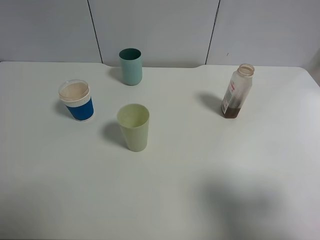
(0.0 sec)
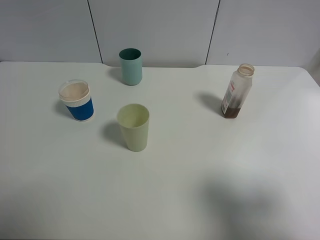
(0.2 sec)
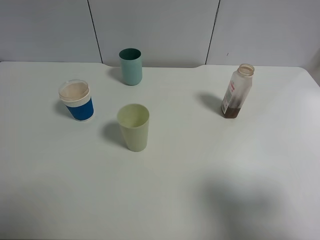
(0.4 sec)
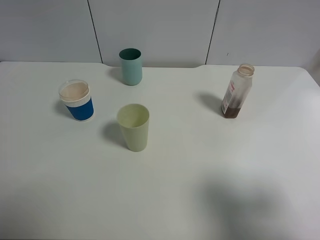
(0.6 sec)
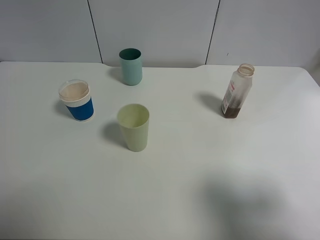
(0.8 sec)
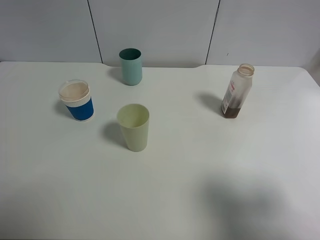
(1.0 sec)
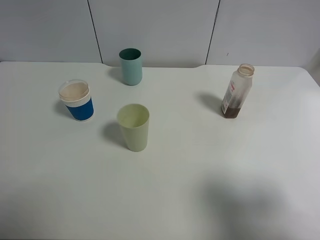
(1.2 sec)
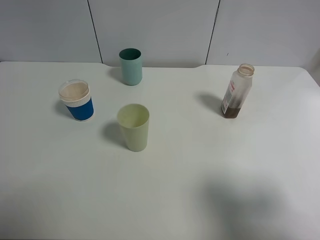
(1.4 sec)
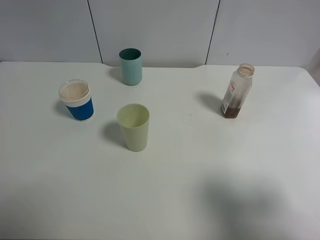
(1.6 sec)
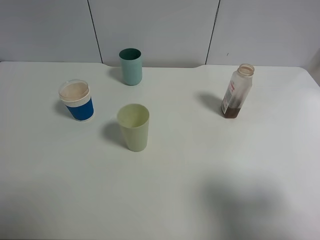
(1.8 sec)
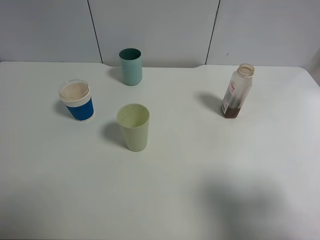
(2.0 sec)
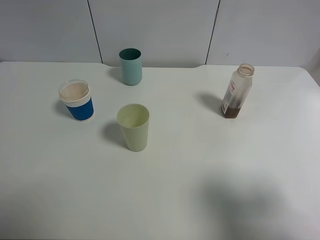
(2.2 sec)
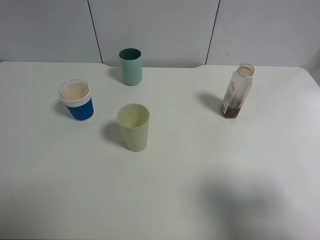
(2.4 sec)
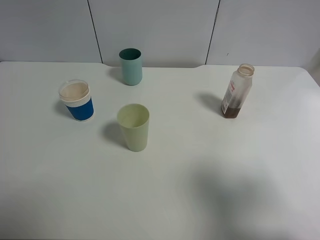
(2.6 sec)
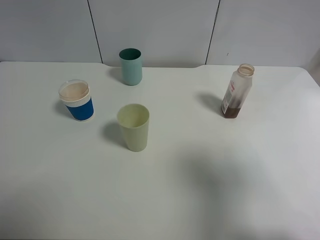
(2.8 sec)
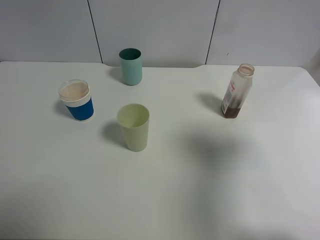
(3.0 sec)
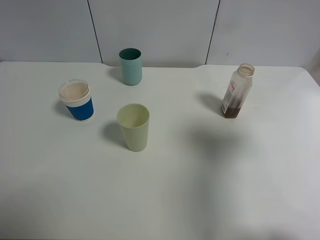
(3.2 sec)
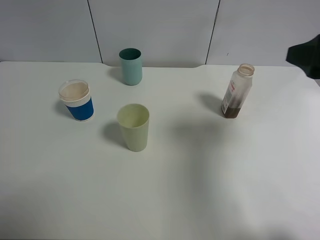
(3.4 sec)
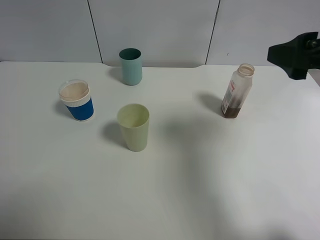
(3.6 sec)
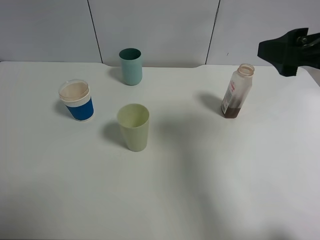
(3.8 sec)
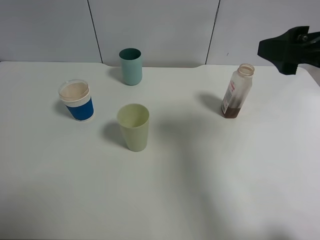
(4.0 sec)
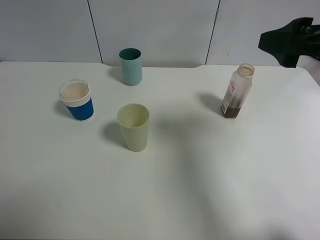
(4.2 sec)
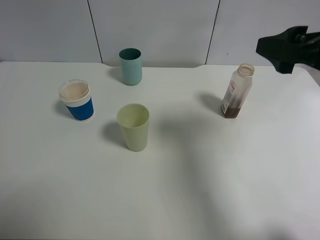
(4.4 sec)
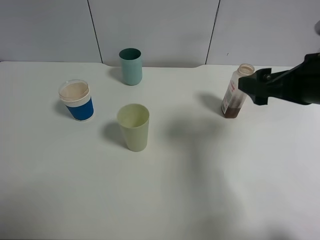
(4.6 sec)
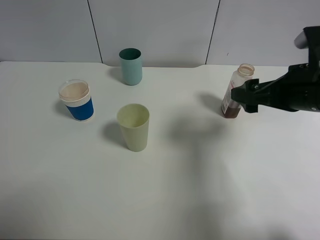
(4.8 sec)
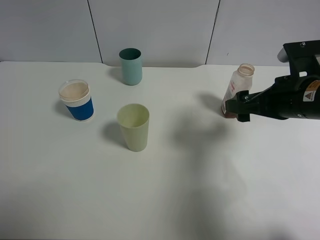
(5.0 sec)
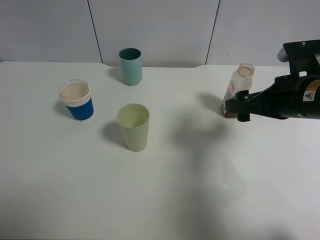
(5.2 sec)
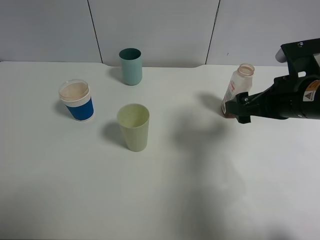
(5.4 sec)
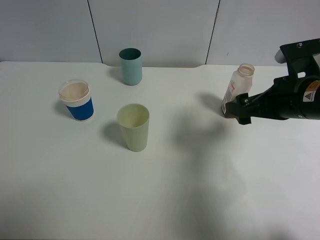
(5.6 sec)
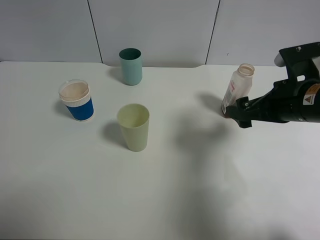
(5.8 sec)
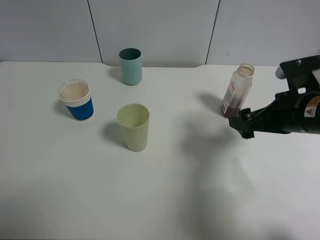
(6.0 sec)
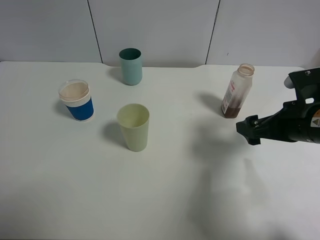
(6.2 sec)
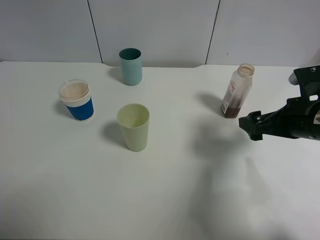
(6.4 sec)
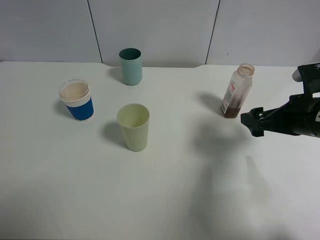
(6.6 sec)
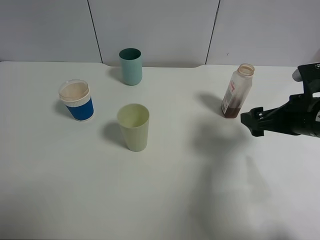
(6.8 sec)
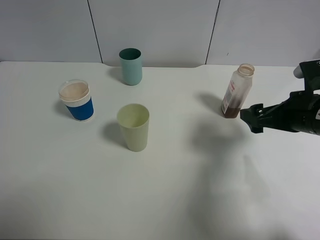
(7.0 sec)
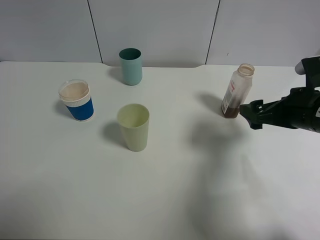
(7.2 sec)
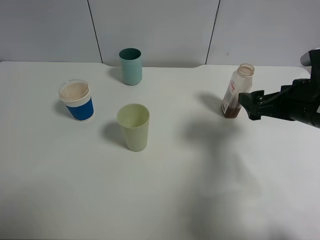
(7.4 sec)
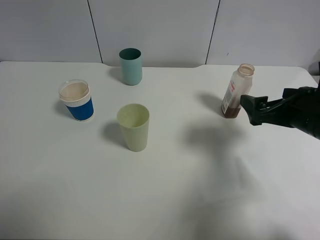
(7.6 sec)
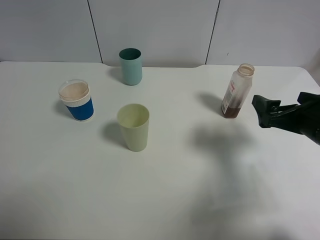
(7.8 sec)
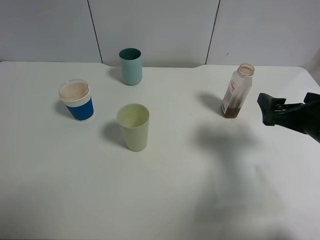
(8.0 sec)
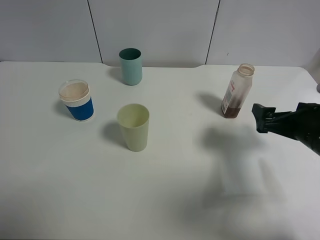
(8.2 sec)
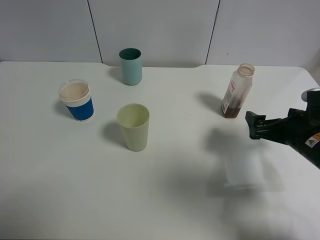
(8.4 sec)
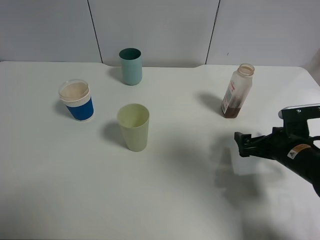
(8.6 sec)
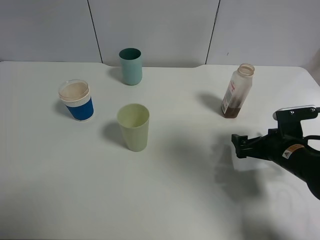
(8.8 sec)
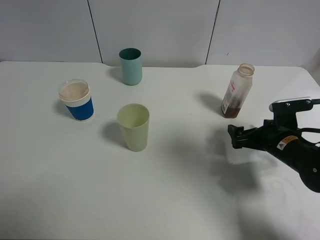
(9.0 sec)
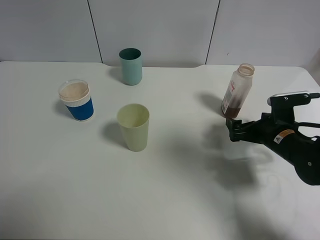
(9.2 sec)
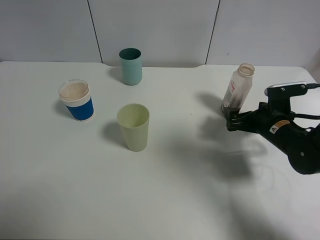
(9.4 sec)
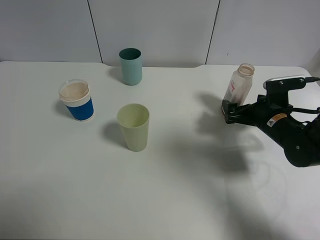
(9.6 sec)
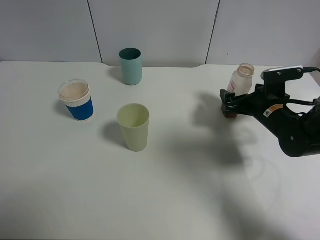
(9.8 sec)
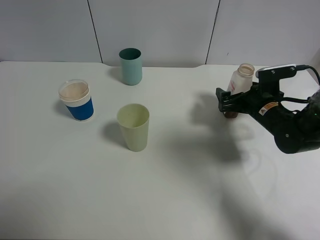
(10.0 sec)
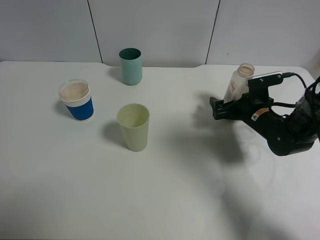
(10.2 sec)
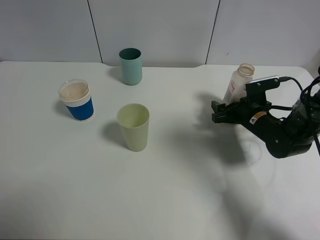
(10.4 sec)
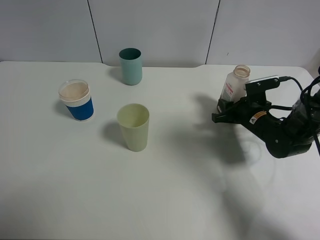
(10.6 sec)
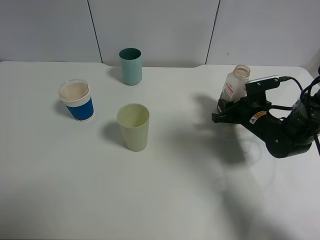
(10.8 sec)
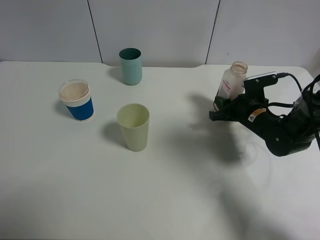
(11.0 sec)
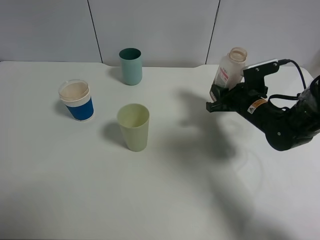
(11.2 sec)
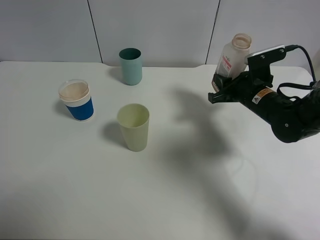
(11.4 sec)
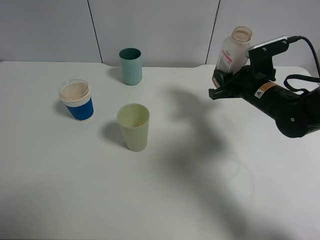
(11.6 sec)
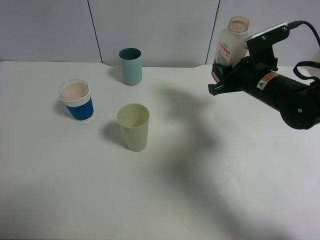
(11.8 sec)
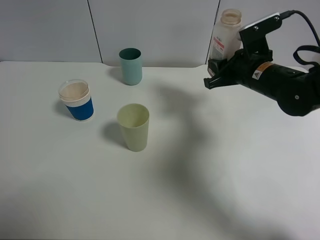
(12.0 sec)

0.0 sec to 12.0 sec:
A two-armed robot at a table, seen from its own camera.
Task of the whole recording: use a clamp to hold the bottle of the drink, pour the beverage into a random cup, then clamp the cup containing the drink and pour the drink into another random cup.
Step, 0.0 sec to 11.0 sec: Pick up the drink bottle with right gripper.
0.0 sec to 1.6 sec: Neither gripper changes place.
1.6 sec to 3.0 sec: The right gripper travels forward by about 10 cm.
3.0 sec to 4.4 sec: The right gripper travels forward and to the left by some 10 cm.
4.4 sec to 6.0 sec: The right gripper moves downward, roughly 10 cm.
7.6 sec to 9.0 sec: The right gripper is displaced downward by roughly 10 cm.
9.0 sec to 10.4 sec: The right gripper heads forward, covering approximately 10 cm.
10.4 sec to 12.0 sec: The right gripper shifts about 15 cm upward, and closes its fingers.

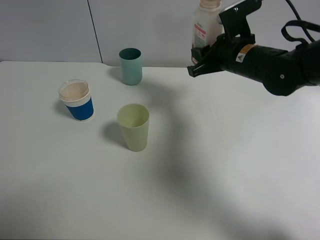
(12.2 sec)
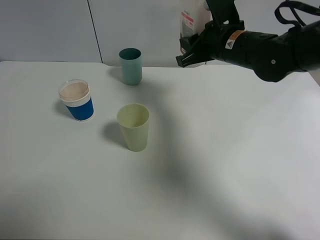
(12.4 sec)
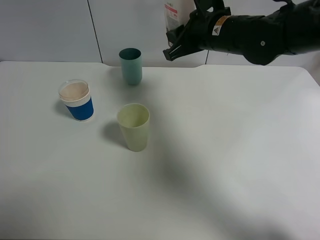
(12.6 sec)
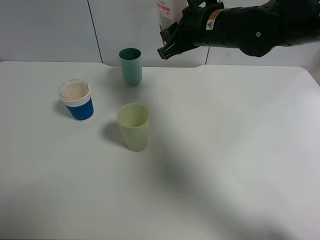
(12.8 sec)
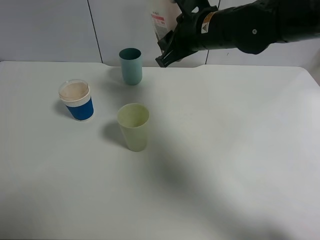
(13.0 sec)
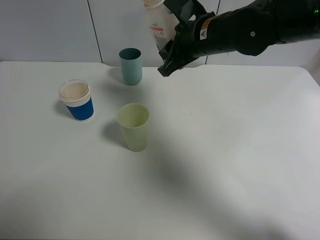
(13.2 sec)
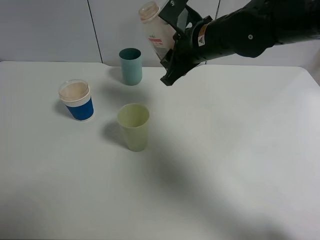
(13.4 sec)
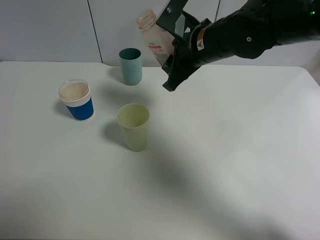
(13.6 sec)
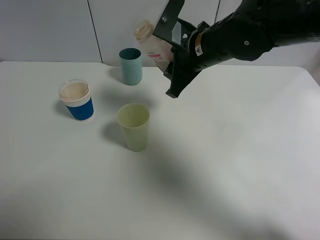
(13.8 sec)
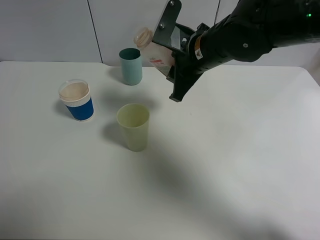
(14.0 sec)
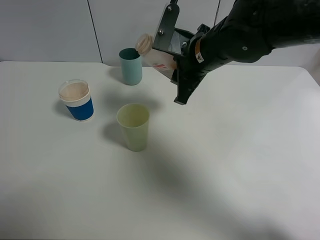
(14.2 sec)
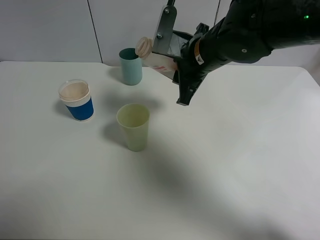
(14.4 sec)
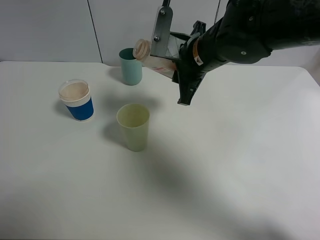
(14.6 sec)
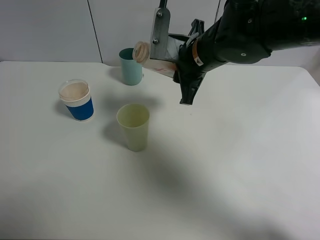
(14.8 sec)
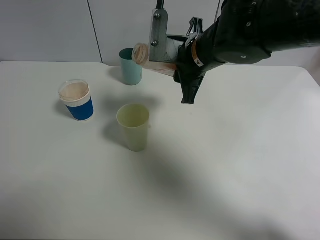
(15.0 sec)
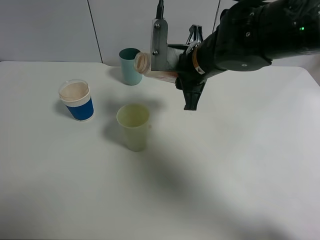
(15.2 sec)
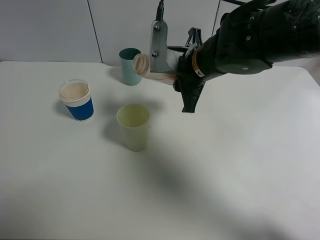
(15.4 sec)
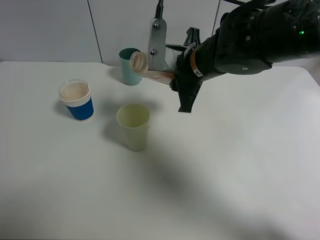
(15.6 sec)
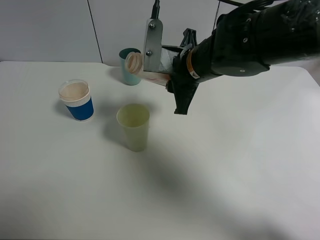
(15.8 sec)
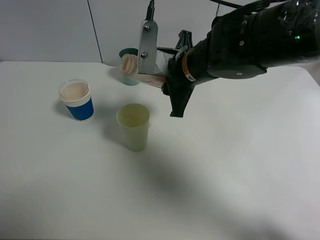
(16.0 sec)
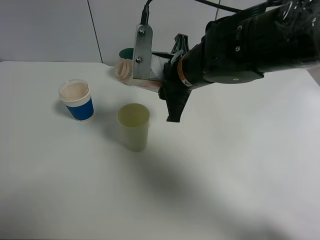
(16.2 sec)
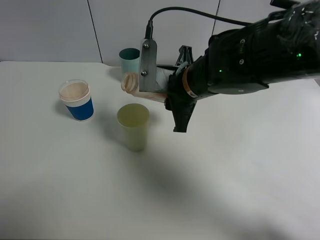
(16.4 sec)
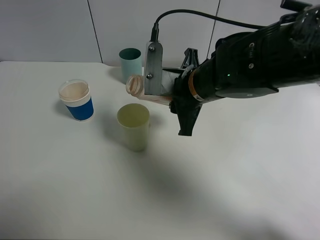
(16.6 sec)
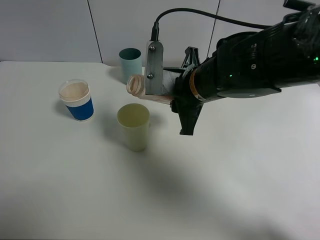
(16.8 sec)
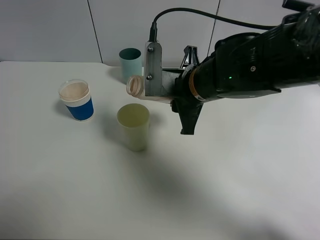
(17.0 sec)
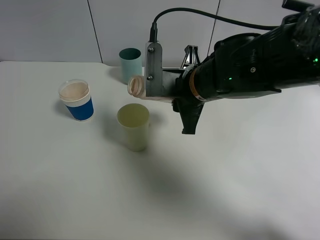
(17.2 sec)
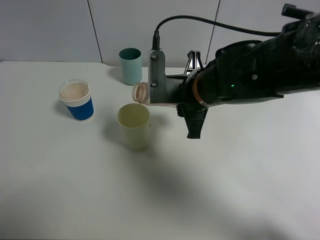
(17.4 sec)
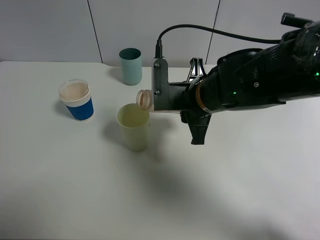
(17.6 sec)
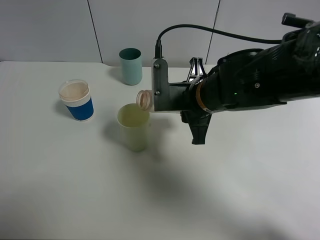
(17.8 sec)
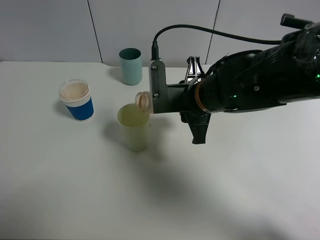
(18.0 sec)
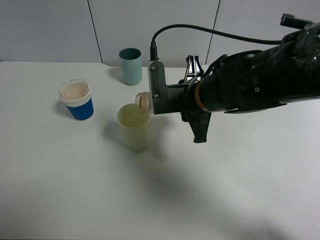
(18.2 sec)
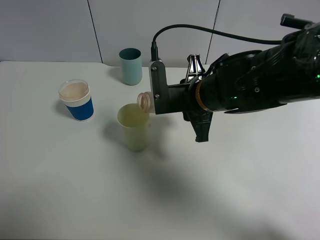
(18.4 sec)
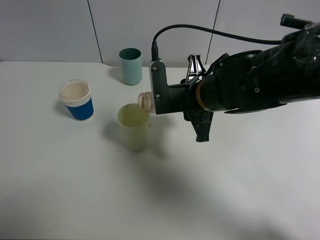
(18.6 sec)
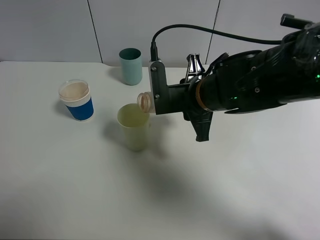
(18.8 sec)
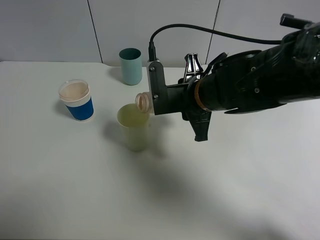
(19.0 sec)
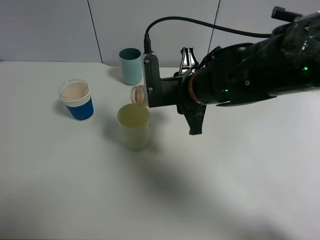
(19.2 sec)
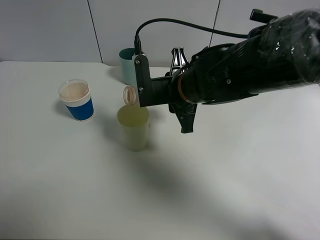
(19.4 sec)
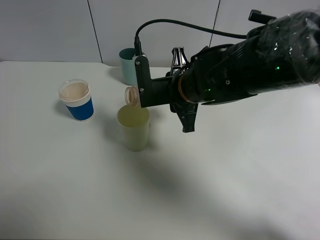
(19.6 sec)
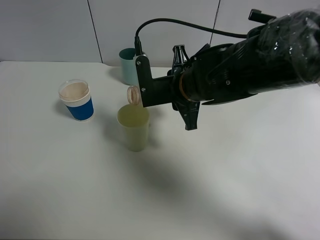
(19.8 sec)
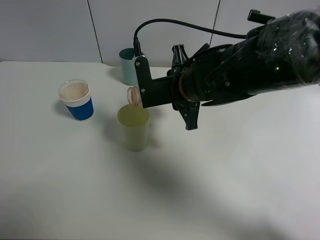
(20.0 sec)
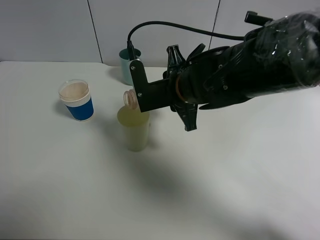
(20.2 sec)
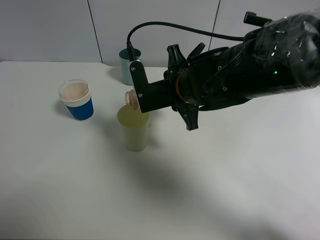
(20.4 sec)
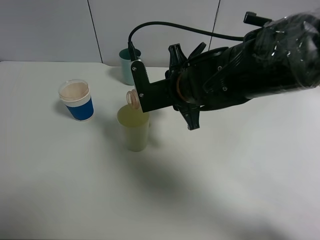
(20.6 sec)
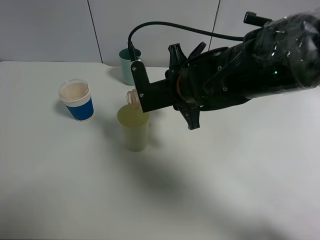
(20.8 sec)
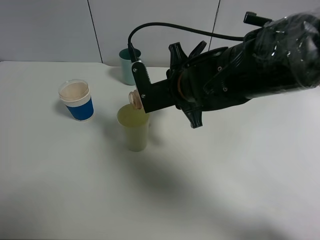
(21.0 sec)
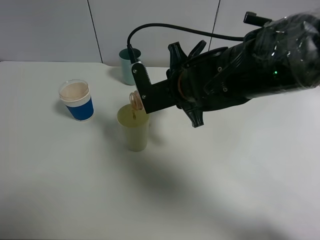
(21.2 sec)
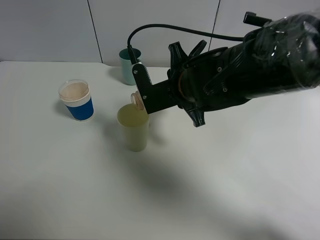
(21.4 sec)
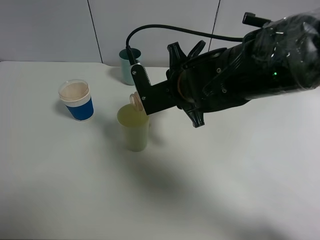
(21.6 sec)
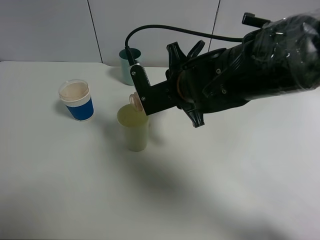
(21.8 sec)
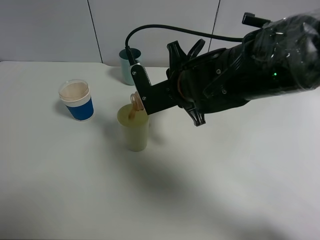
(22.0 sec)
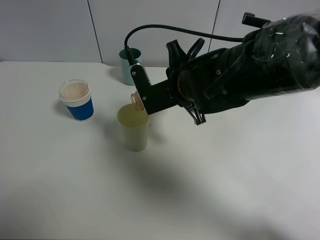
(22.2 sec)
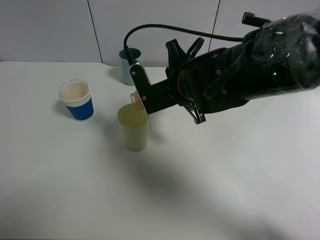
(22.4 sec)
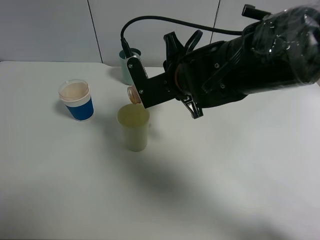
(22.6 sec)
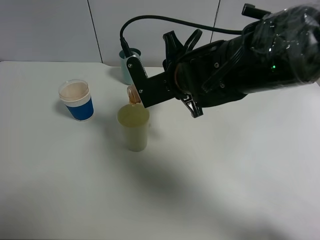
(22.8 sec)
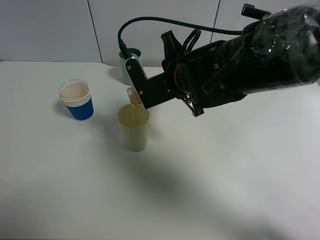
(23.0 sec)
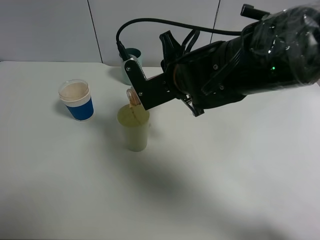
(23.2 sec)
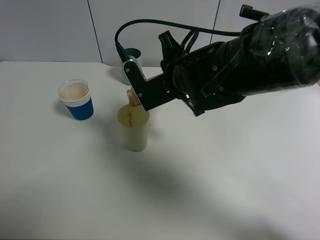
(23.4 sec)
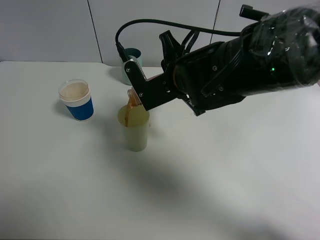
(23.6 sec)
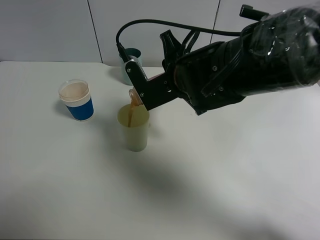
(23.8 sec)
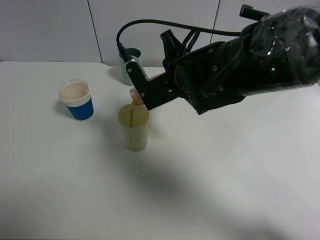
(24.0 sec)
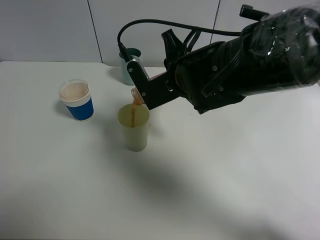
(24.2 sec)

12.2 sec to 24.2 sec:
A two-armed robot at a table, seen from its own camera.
Task of the whole recording: use a clamp to hold the bottle of the drink, pour the beverage into a random cup, then clamp the cup containing the drink and pour the drink into another random cup.
12.2 sec to 13.8 sec: The right gripper goes about 5 cm to the left.
15.2 sec to 19.8 sec: There are only small adjustments of the grippers.
19.8 sec to 22.6 sec: The grippers make only small movements.
22.6 sec to 24.2 sec: There are only small adjustments of the grippers.
